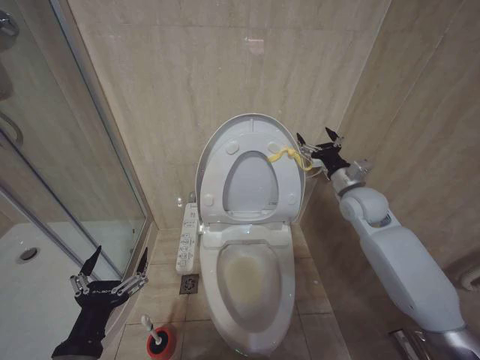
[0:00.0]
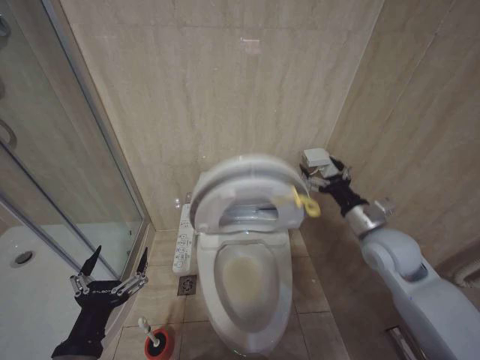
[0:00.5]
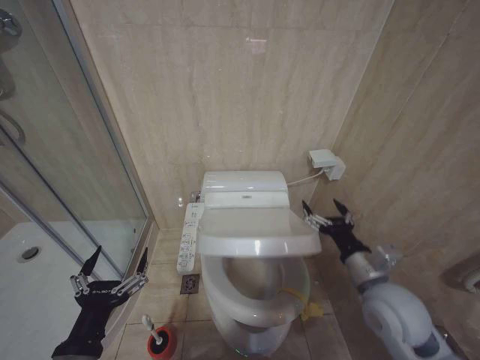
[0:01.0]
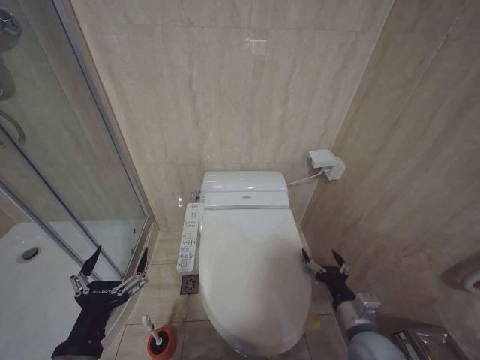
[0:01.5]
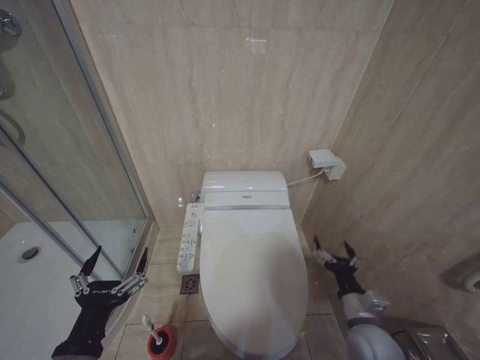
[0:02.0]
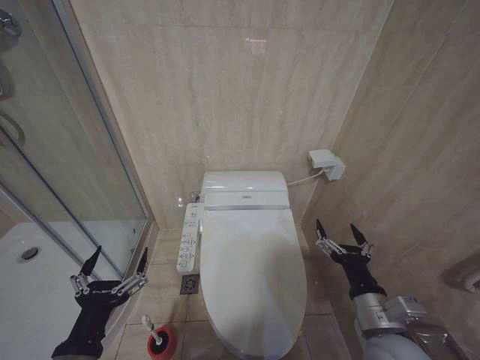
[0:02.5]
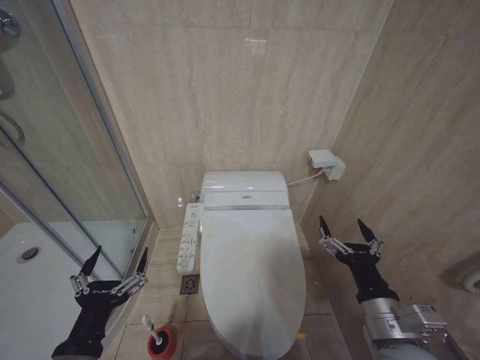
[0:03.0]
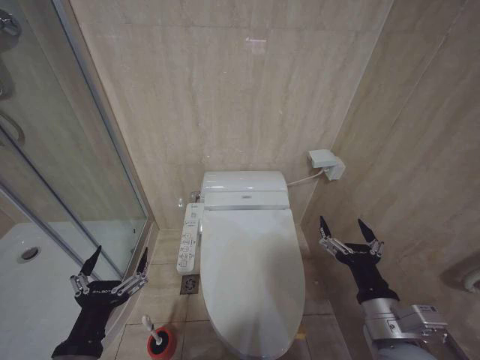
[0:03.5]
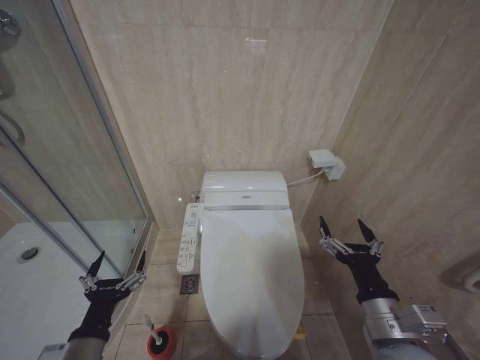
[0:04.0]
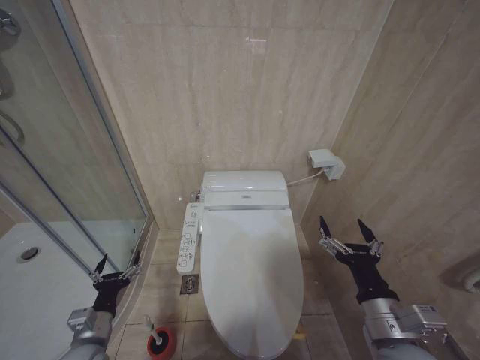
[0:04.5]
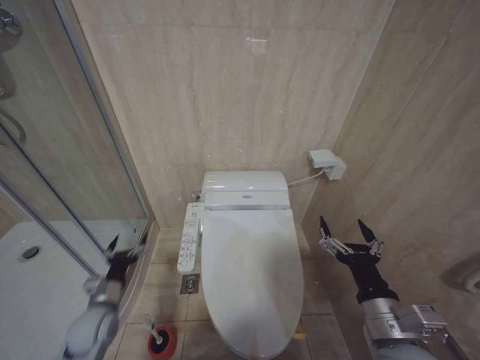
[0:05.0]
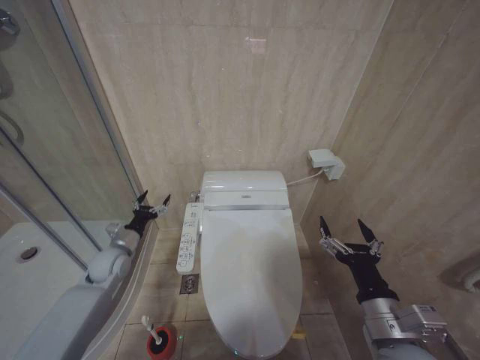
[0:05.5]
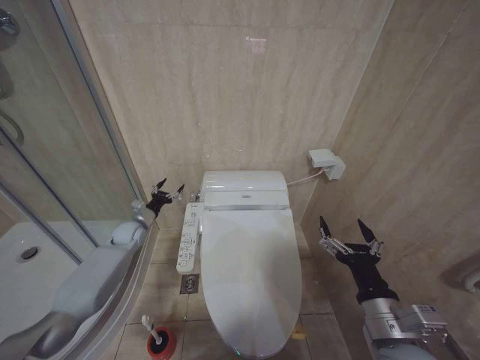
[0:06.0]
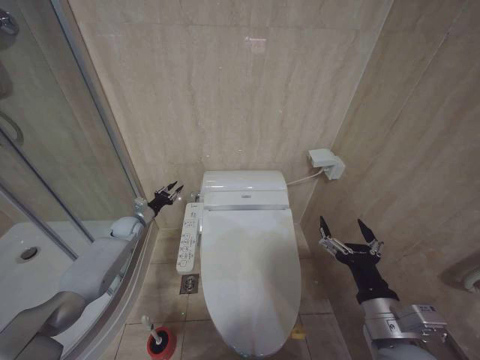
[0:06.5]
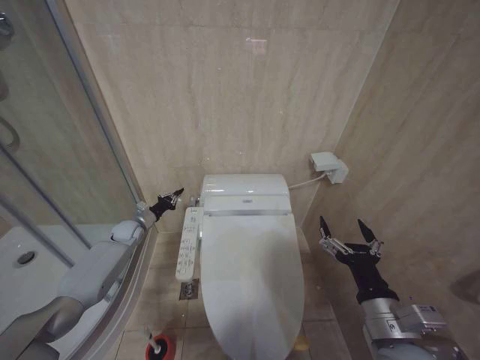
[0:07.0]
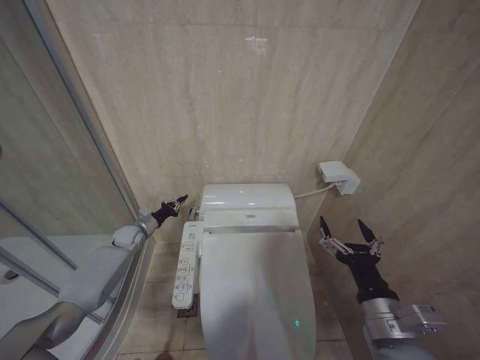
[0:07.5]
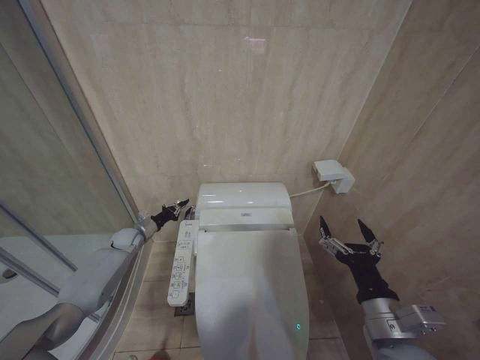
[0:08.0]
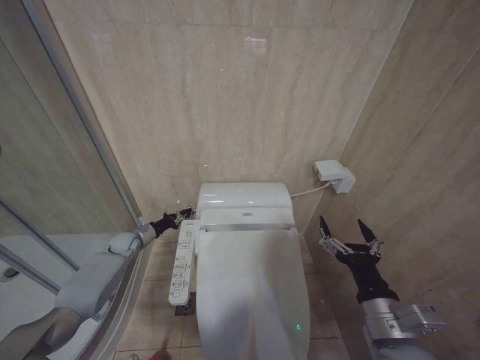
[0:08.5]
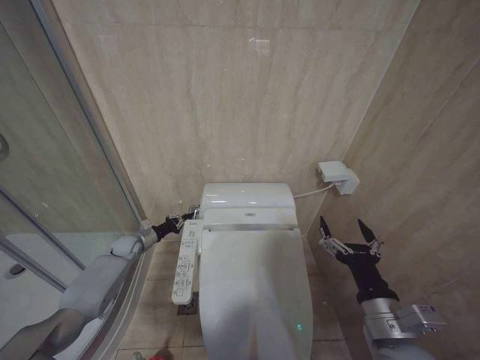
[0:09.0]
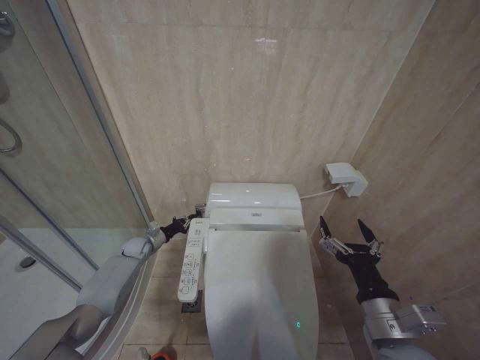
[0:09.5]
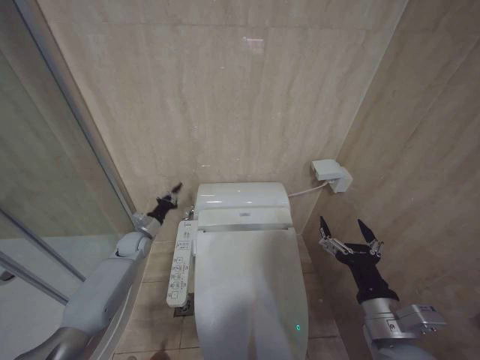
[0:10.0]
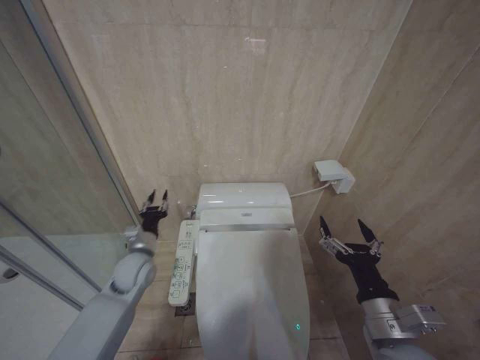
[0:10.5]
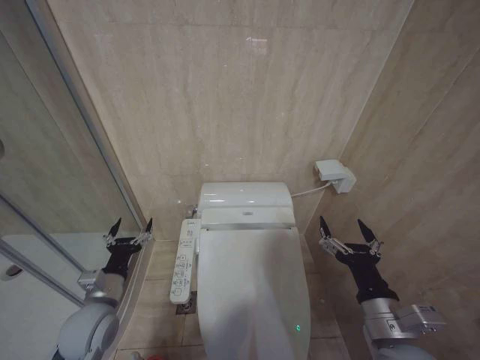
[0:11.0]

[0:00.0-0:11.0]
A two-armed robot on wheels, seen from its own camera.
Task of the whole recording: Open the toilet lid, clean the toilet bowl with a toilet brush, close the toilet lid, and flush.
0:00.0 to 0:02.0: The right gripper is displaced downward and backward by approximately 35 cm.
0:02.0 to 0:03.5: The right gripper moves upward and backward, approximately 15 cm.
0:03.5 to 0:05.5: The left gripper goes some 30 cm forward.
0:05.5 to 0:07.5: The left gripper moves forward, some 15 cm, and closes up.
0:07.5 to 0:09.0: The grippers stay close to where they were, moving slightly.
0:09.0 to 0:11.0: The left gripper goes about 25 cm backward and upward, and opens its fingers.

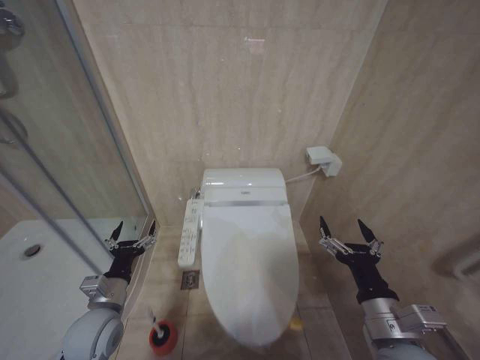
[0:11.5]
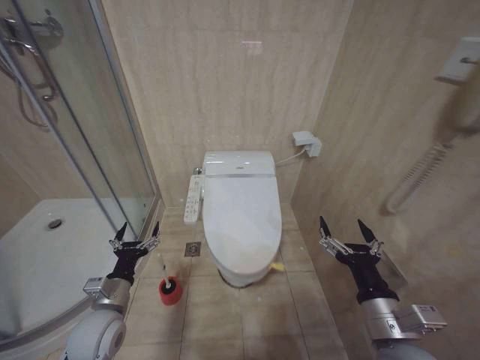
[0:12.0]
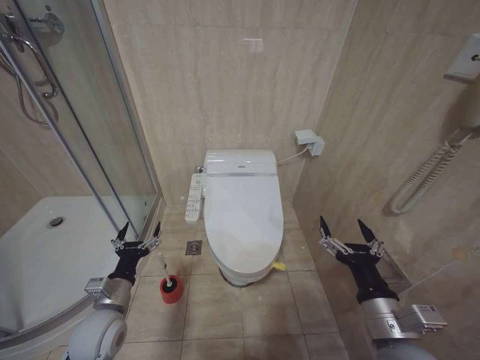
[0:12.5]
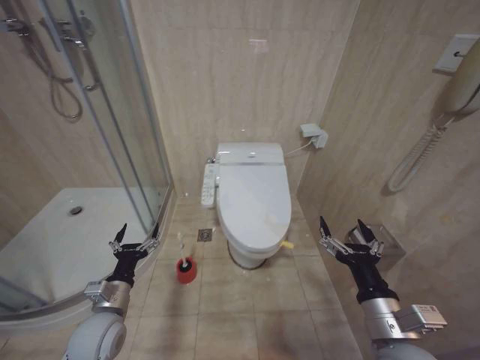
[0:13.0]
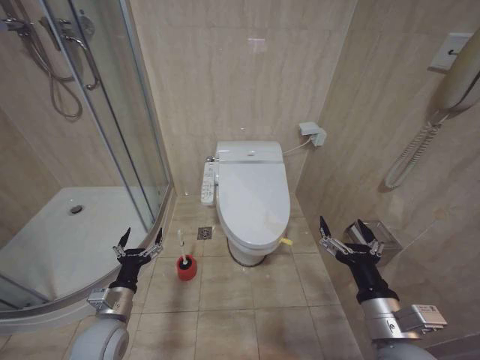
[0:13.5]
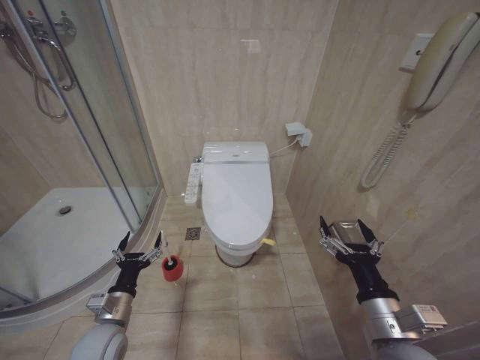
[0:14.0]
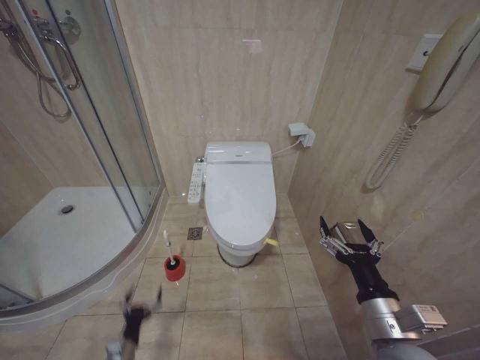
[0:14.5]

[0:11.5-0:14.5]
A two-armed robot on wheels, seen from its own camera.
Task of the whole recording: Open the toilet lid, clean the toilet bowl with a toilet brush, close the toilet lid, and flush.
0:13.0 to 0:14.5: The left gripper shifts about 15 cm downward.

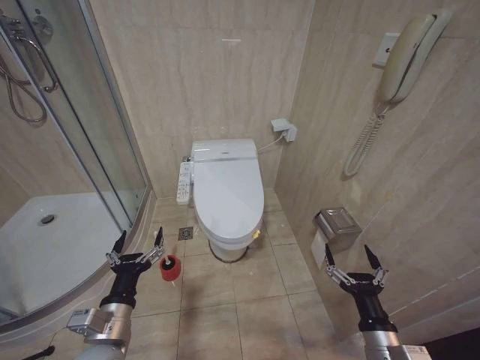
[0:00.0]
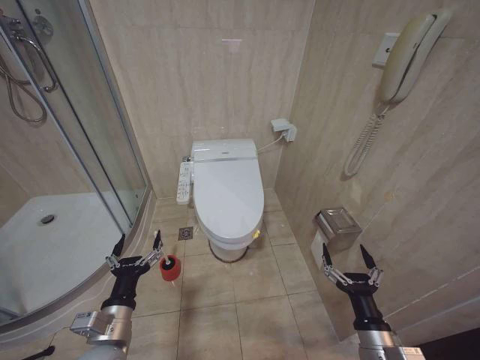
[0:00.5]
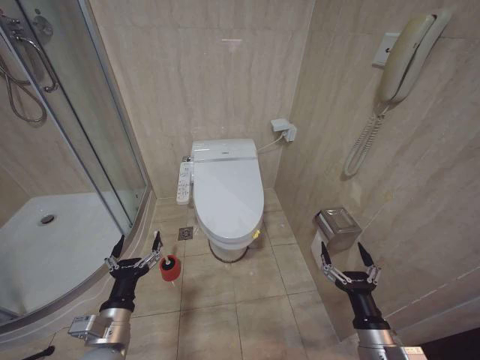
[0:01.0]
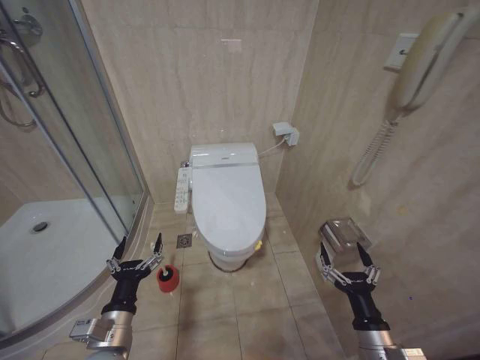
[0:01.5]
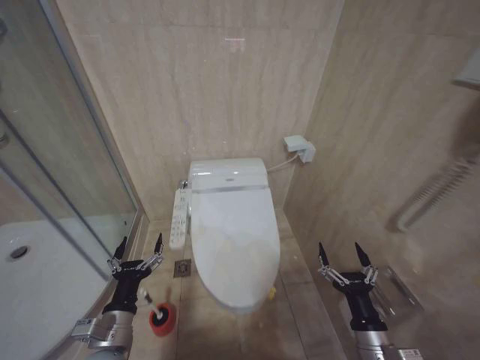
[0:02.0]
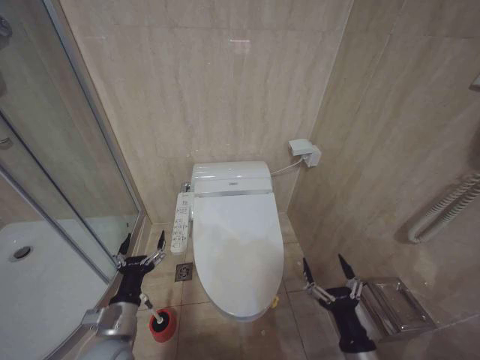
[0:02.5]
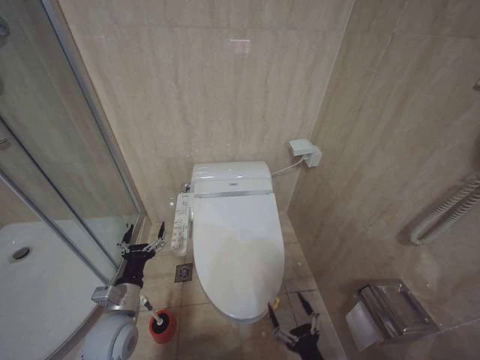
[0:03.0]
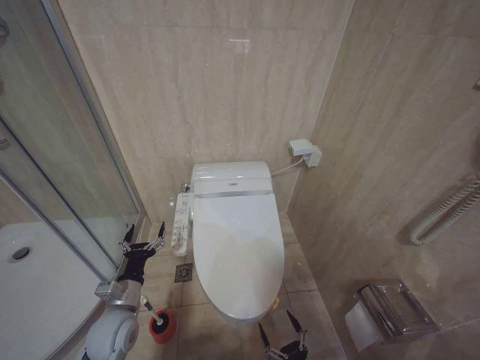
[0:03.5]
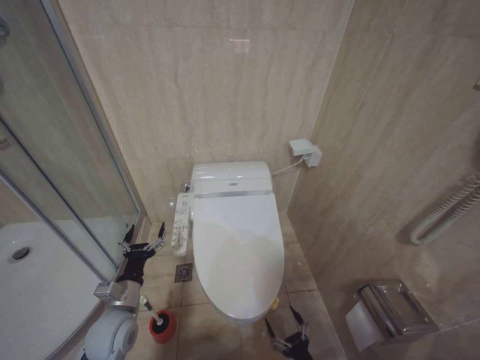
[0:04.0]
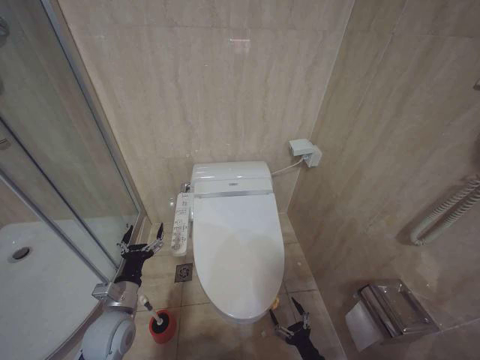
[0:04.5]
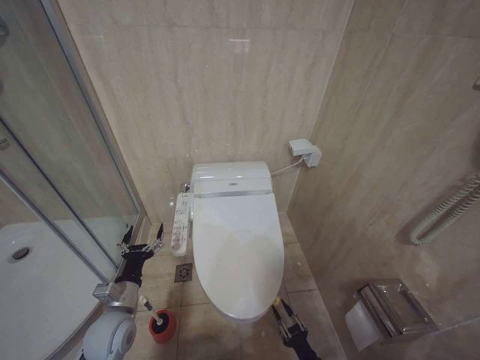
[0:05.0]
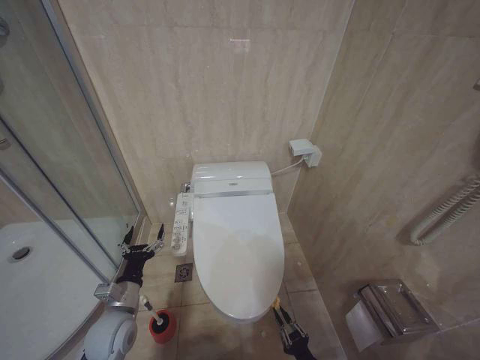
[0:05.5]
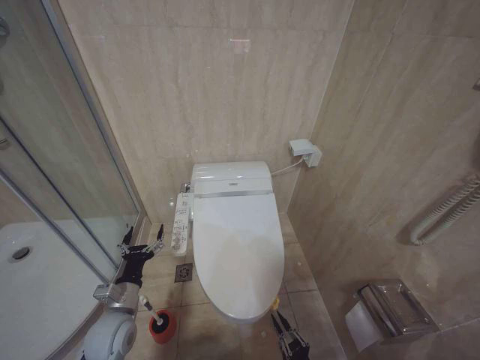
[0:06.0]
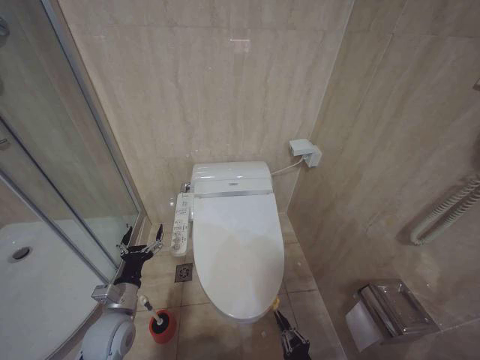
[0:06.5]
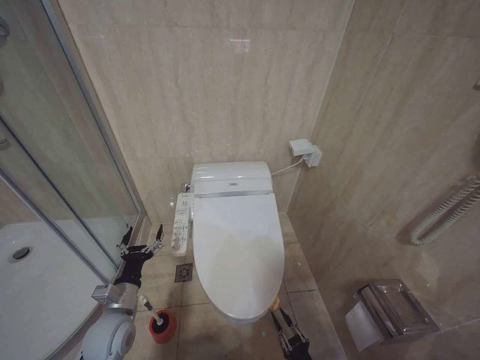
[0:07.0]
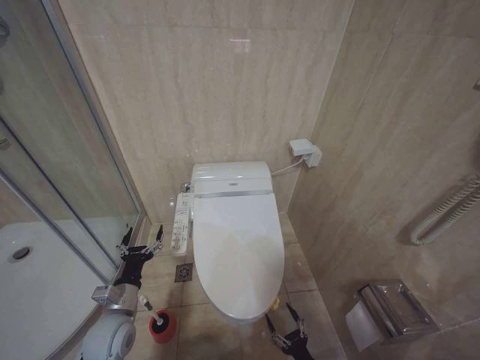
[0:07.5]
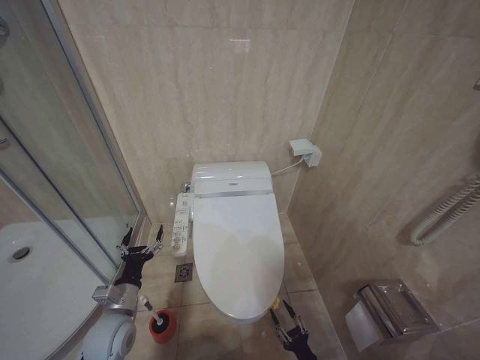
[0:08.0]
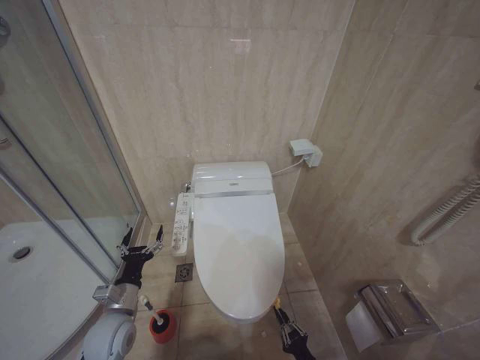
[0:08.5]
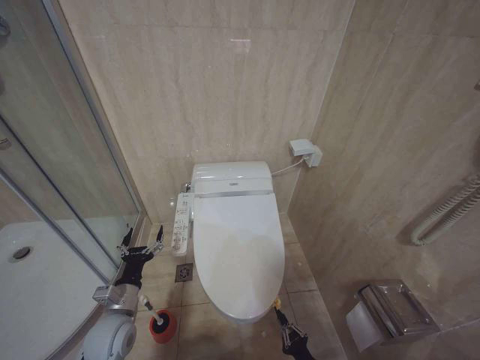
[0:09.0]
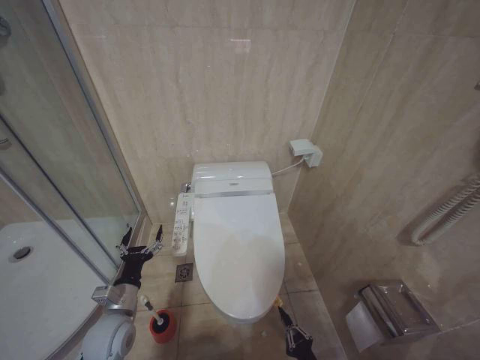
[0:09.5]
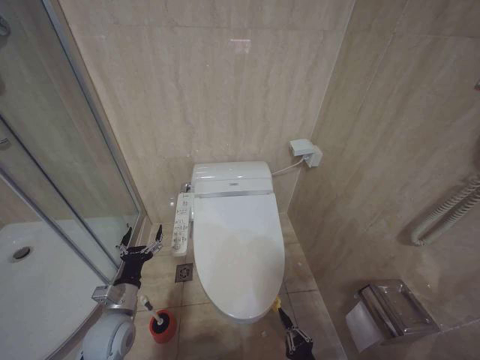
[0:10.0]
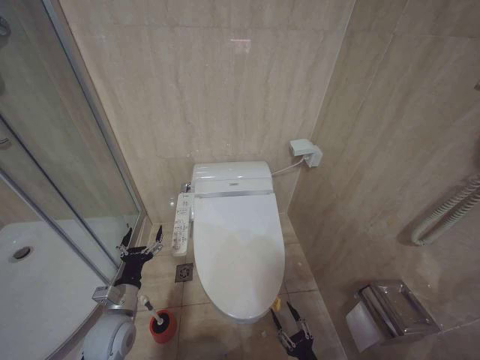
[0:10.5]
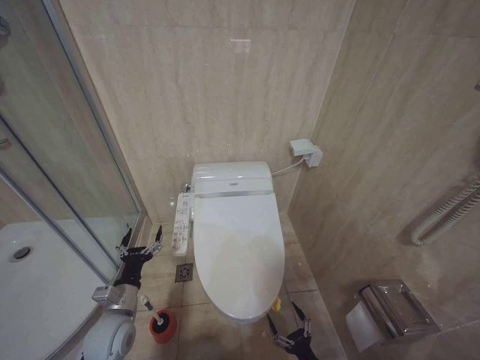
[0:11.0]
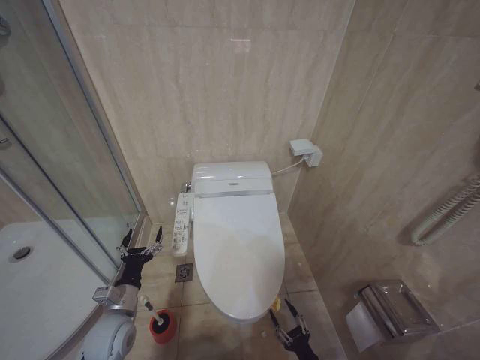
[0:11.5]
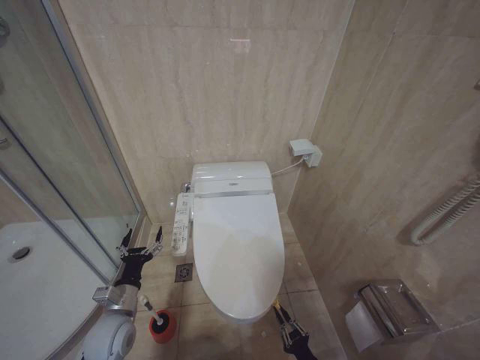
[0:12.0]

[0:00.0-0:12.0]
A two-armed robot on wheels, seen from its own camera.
Task of the whole recording: Open the toilet lid, clean the toilet bowl with a toilet brush, close the toilet lid, and flush.
0:02.0 to 0:04.0: The right gripper is displaced downward by about 20 cm, while the left gripper heads forward, covering approximately 10 cm.
